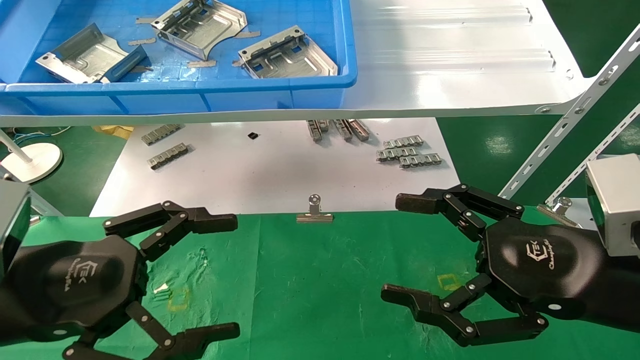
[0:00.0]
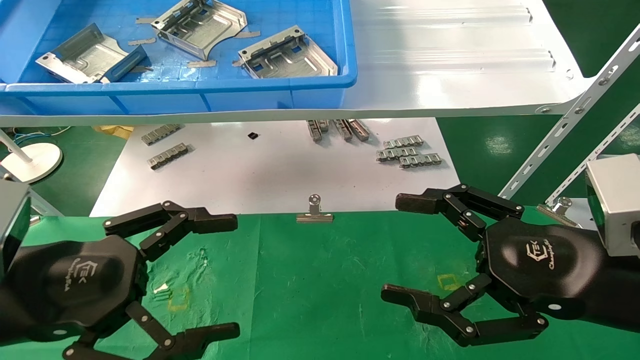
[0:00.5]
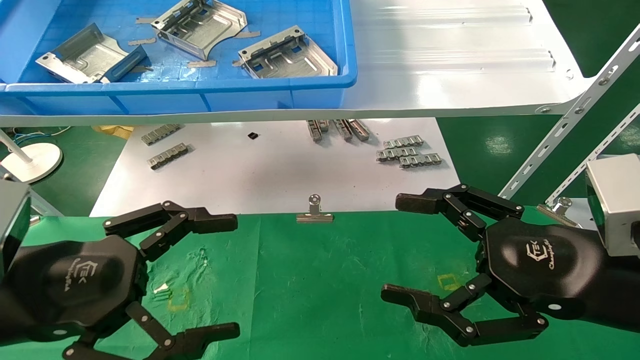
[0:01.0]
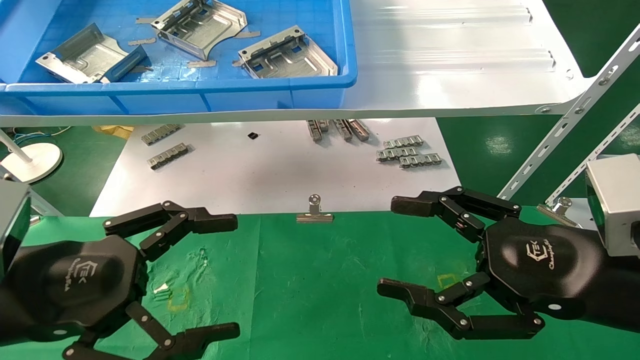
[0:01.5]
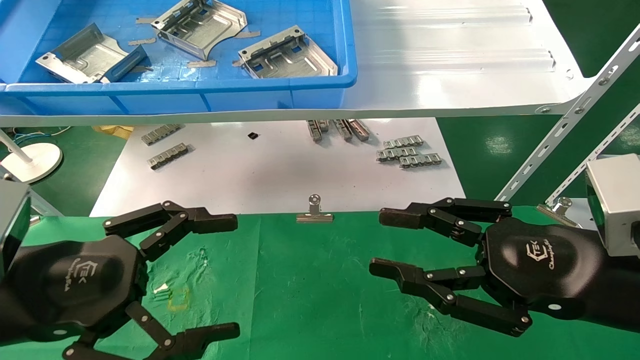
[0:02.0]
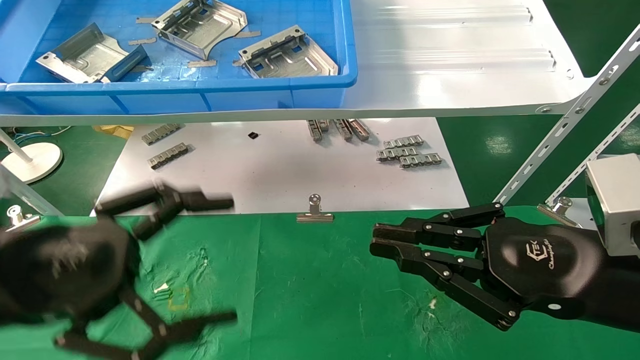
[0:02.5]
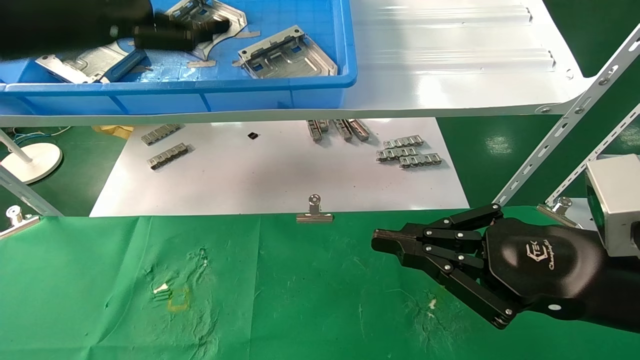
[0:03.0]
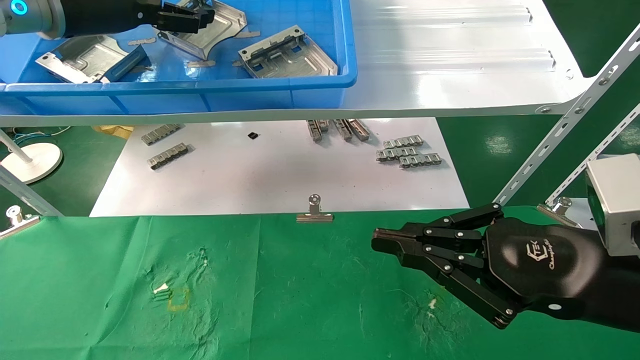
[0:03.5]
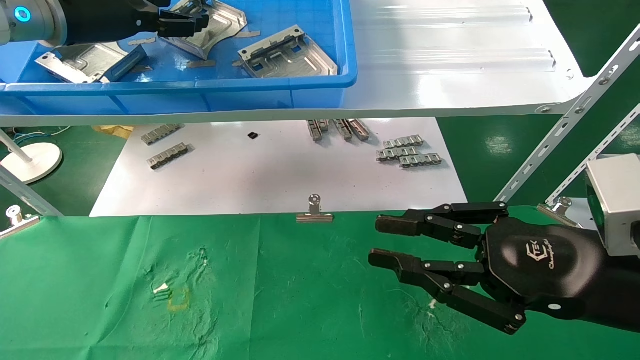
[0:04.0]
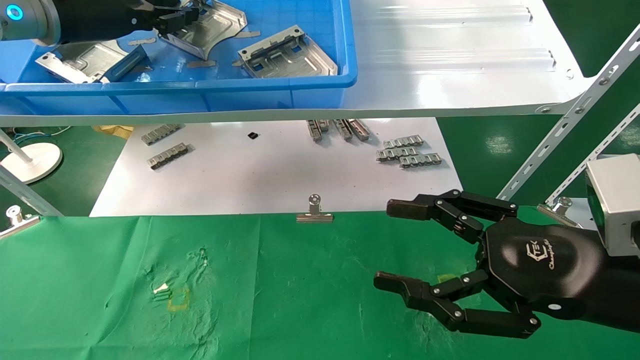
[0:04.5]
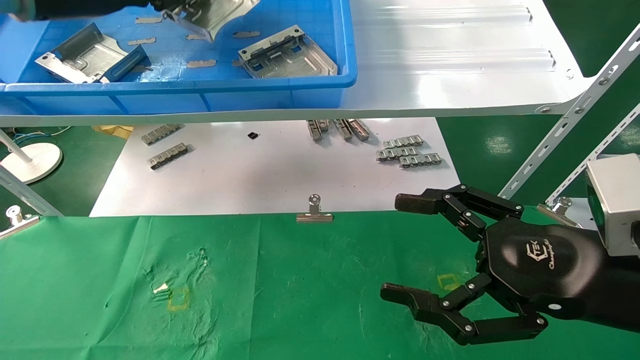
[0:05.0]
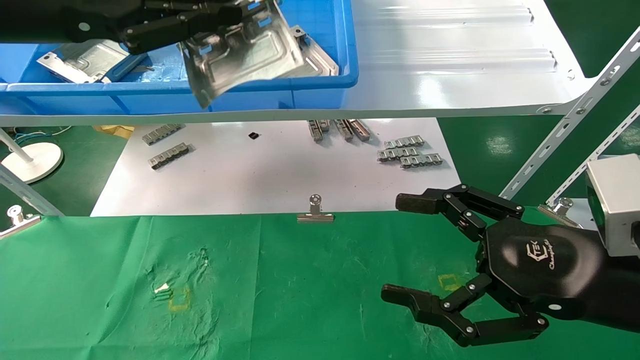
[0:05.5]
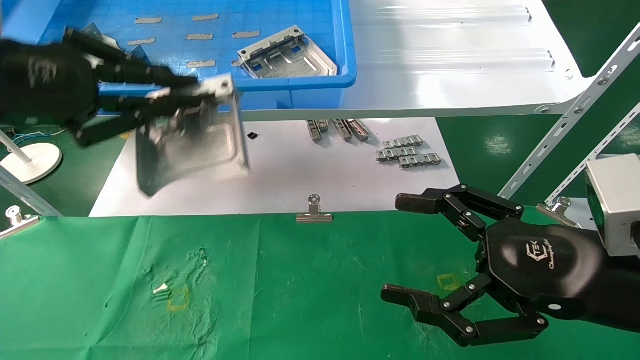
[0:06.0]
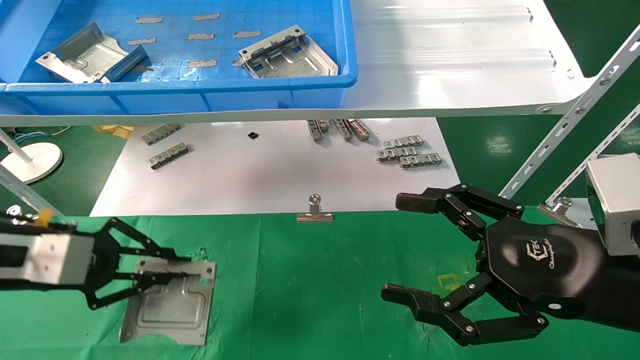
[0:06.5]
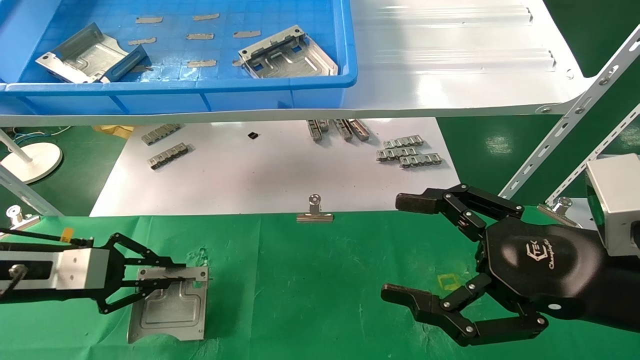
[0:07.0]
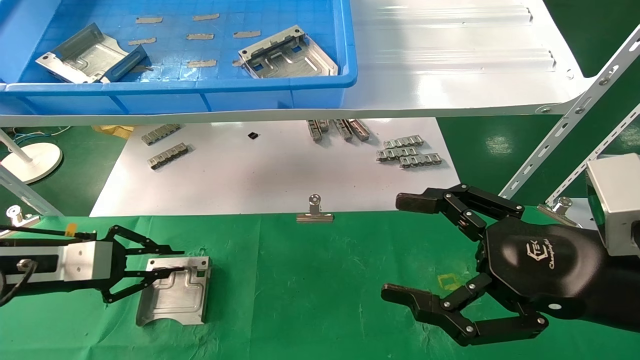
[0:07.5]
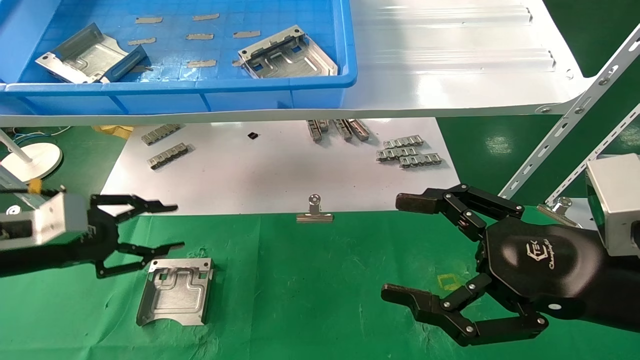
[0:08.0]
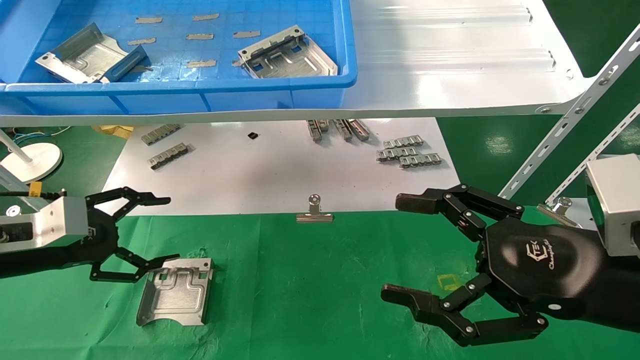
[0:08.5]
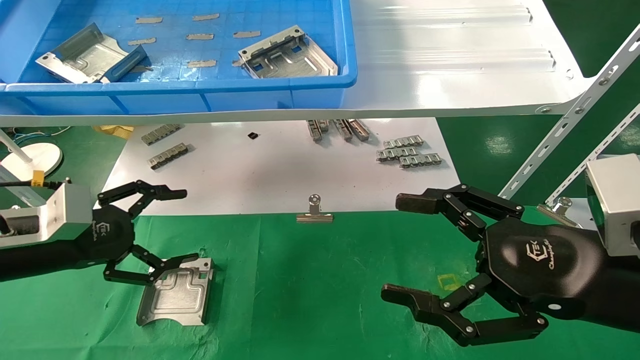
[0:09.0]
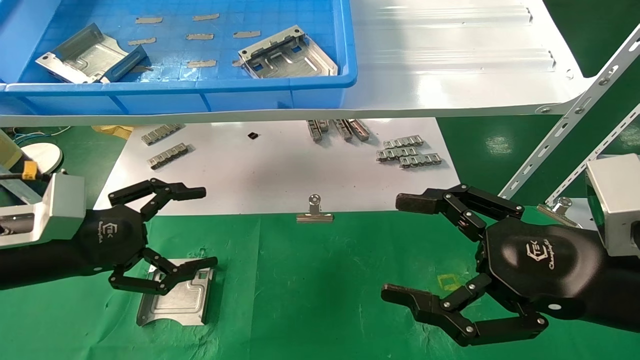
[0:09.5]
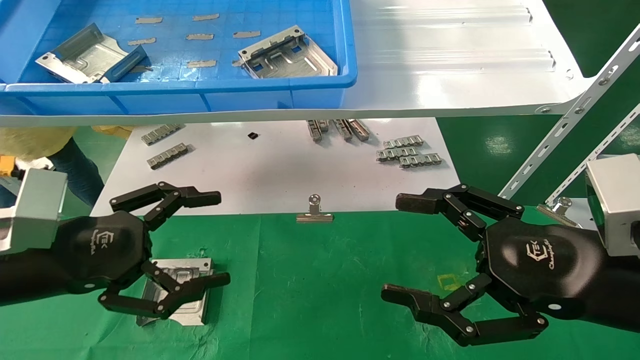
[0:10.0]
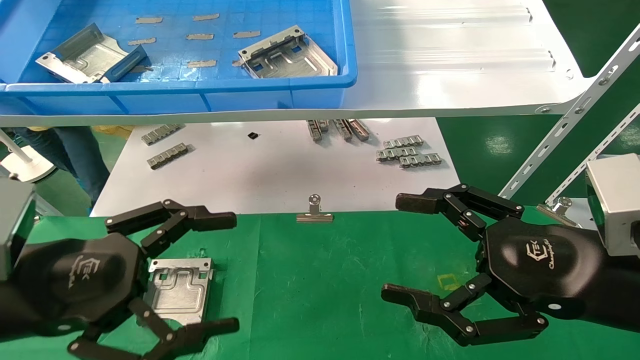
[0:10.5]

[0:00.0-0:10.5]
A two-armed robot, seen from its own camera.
Task of the whole recording: use the mechanical arm to pick up the parts and place them on the table.
Step, 0:03.0 to 0:04.5: Pick up the hard drive bracket from the feeding area.
Step, 0:05.0 to 0:07.0: Place the hard drive bracket into the box.
0:00.0 to 0:02.0: The right gripper closes its fingers.
0:02.0 to 0:04.0: The right gripper closes its fingers; the left gripper heads upward and forward, covering approximately 30 cm.
0:04.0 to 0:06.5: The left gripper heads downward and backward, covering roughly 25 cm, and closes its fingers; the right gripper opens up.
0:06.5 to 0:08.5: The left gripper changes place by roughly 5 cm, and opens.
0:08.5 to 0:10.5: The left gripper shifts roughly 15 cm backward and to the right.

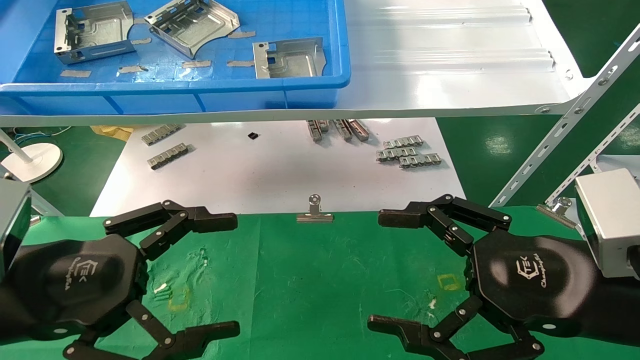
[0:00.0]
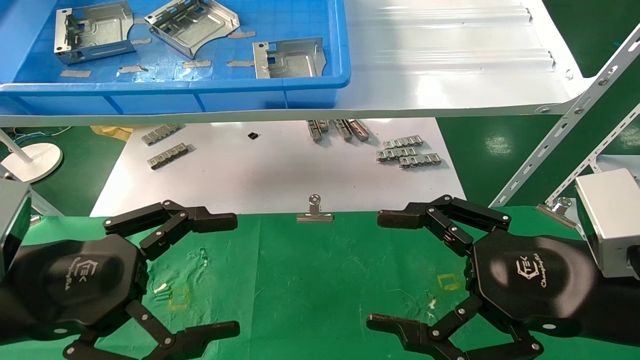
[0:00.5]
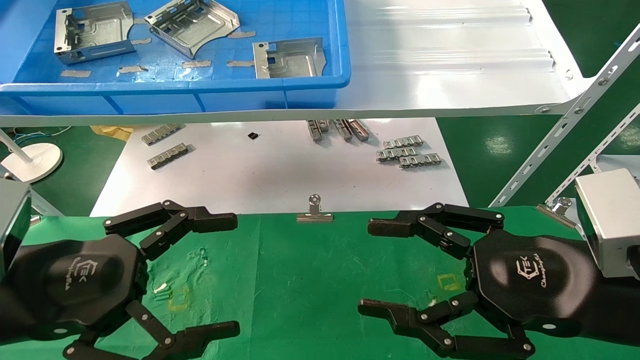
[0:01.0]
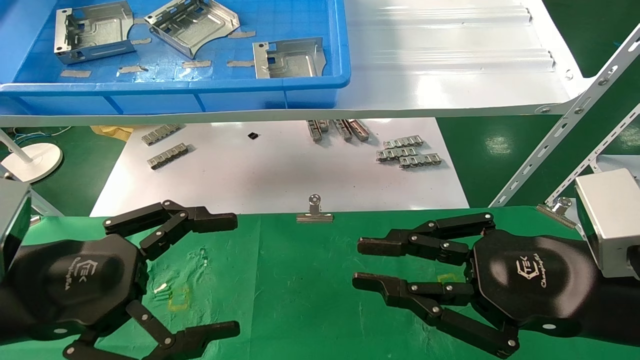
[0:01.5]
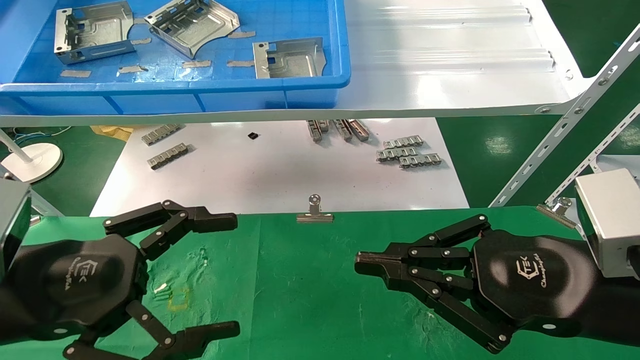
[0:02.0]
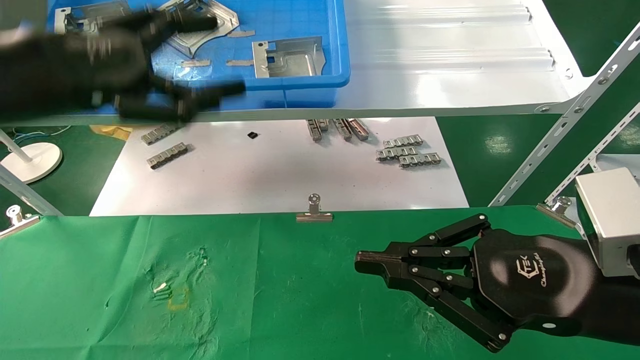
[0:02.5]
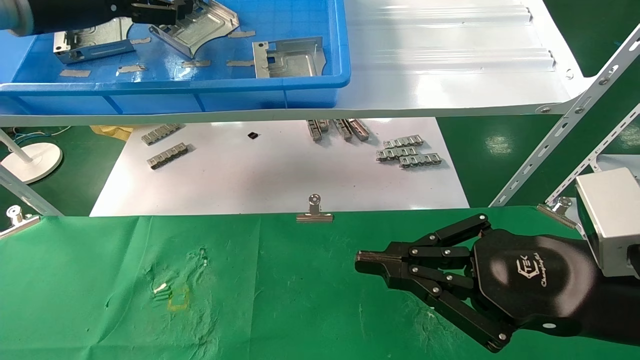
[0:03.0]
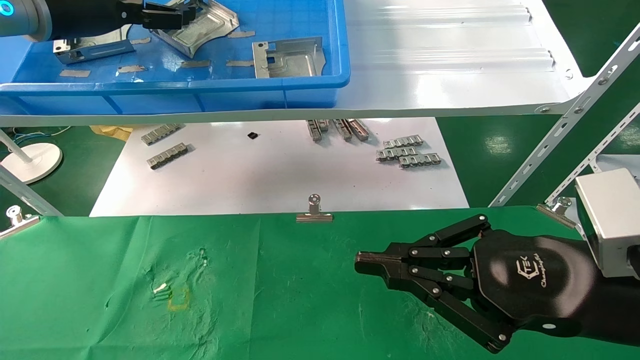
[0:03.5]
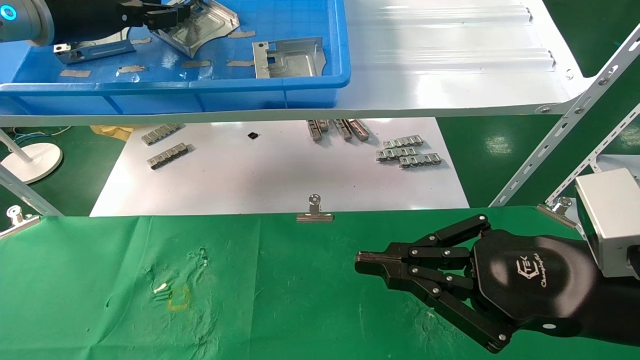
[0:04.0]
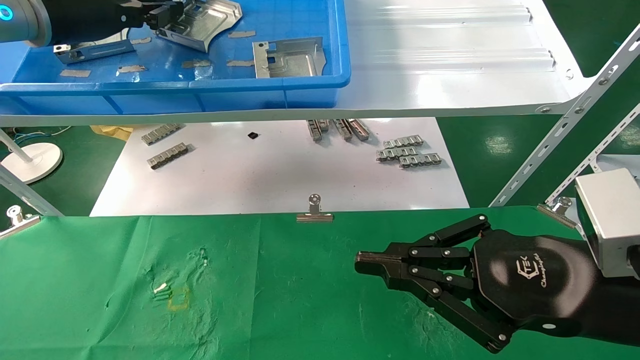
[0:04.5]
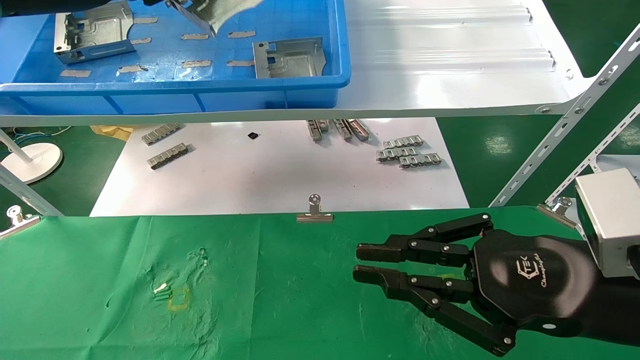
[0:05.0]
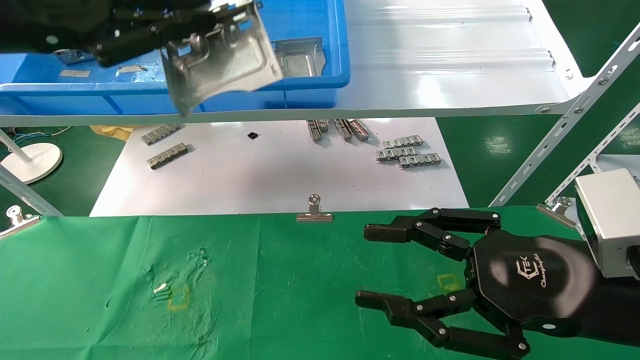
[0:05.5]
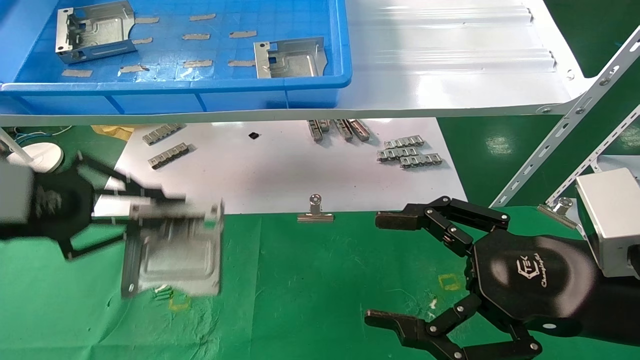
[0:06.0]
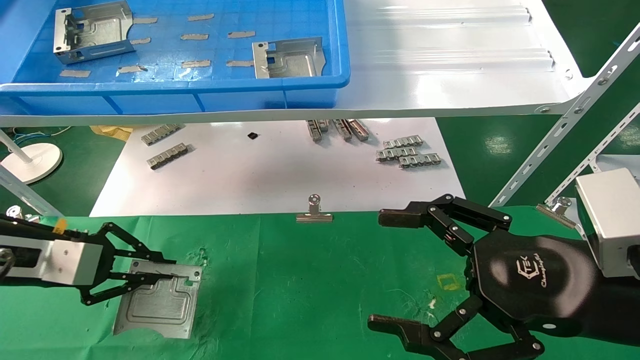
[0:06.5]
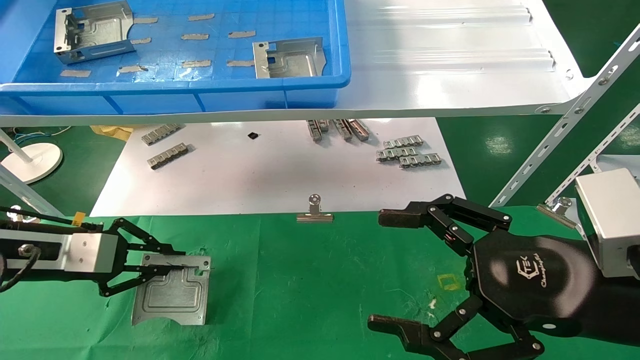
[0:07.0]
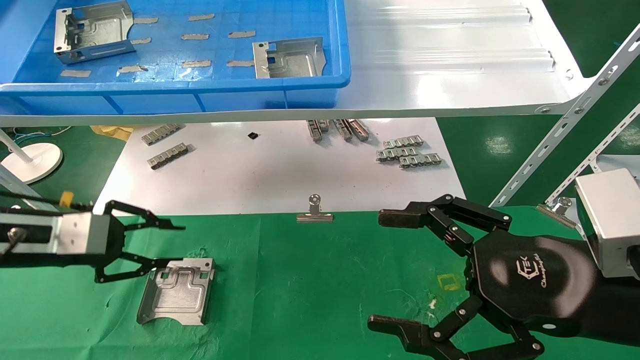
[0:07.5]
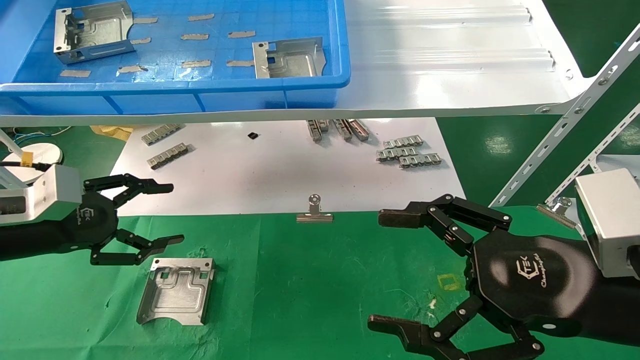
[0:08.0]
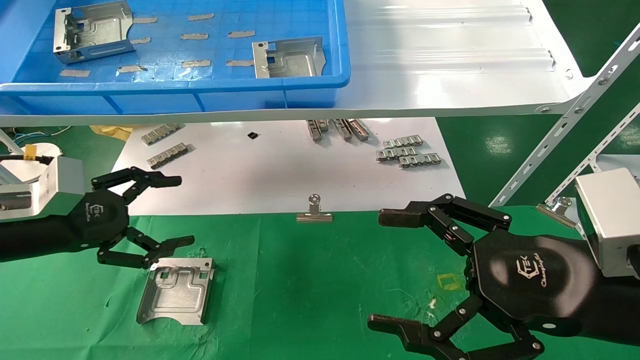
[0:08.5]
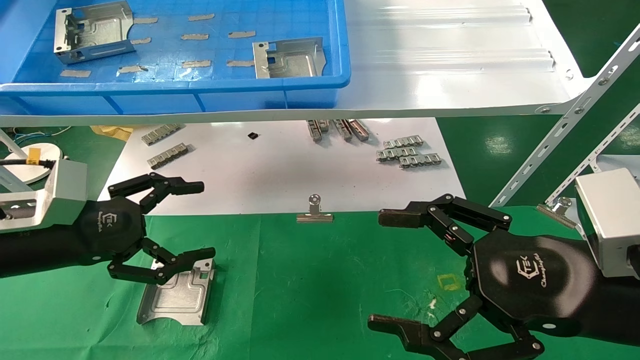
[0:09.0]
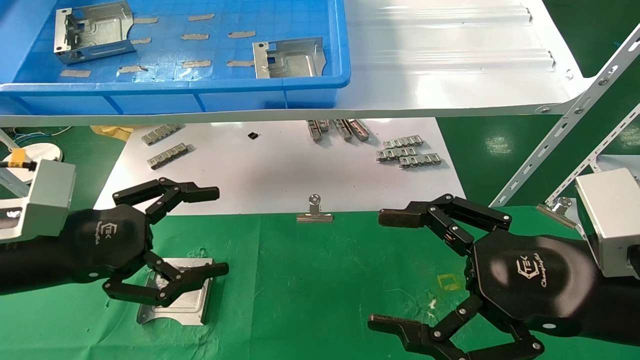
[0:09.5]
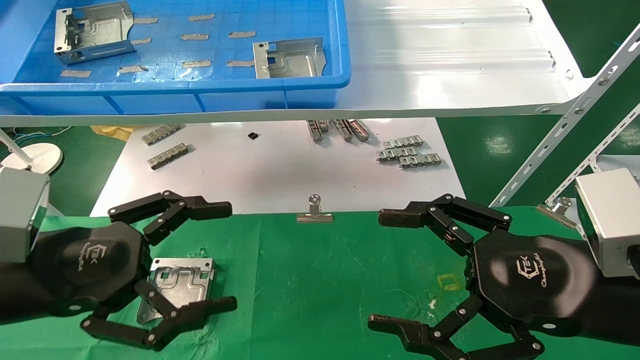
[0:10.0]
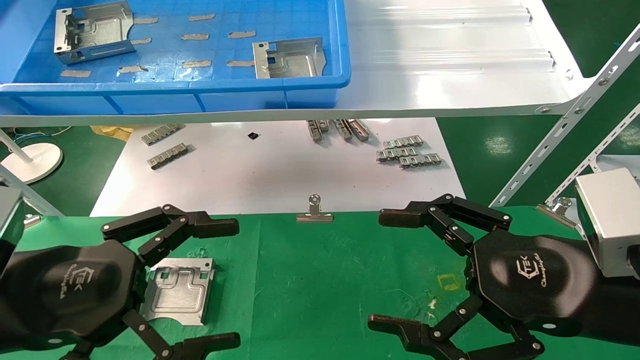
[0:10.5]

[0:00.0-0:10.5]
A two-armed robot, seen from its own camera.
Task of the whole recording: use the mechanical arm to pick up the parts and place them on the table.
Step, 0:02.5 to 0:04.5: Pick up the hard drive bracket from the feeding area.
Step, 0:05.0 to 0:07.5: Place the hard drive bracket into the box.
0:00.0 to 0:02.0: The right gripper closes its fingers.
0:02.0 to 0:04.0: The left gripper is displaced forward and upward by roughly 30 cm, and closes.
0:04.0 to 0:06.5: The right gripper opens its fingers; the left gripper shifts approximately 25 cm downward and backward, and closes up.
0:06.5 to 0:08.5: The left gripper opens its fingers.
0:08.5 to 0:10.5: The left gripper travels backward and to the right by some 15 cm.
